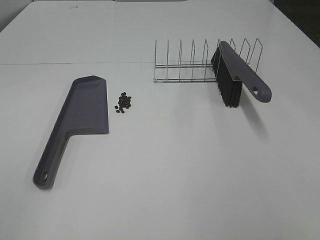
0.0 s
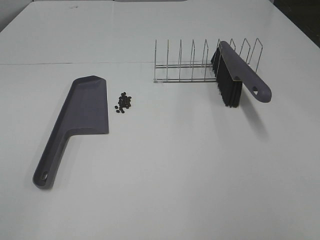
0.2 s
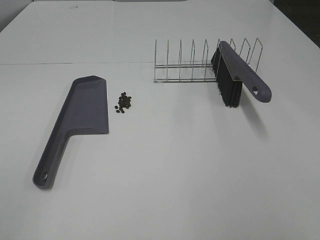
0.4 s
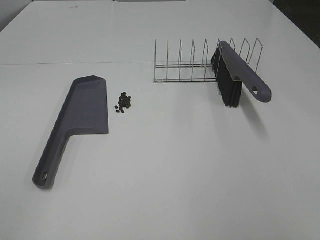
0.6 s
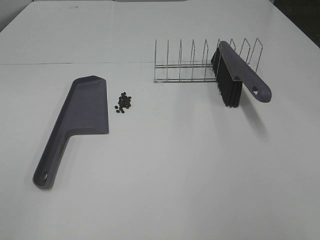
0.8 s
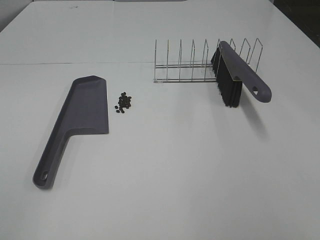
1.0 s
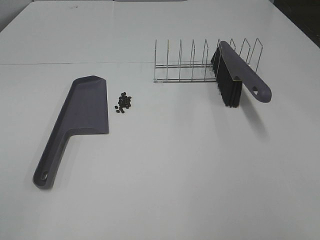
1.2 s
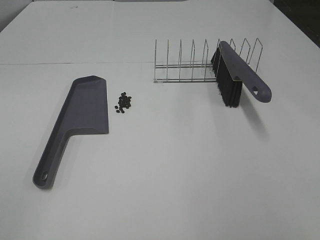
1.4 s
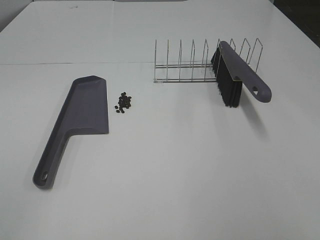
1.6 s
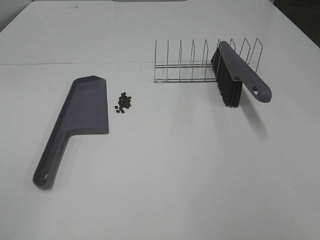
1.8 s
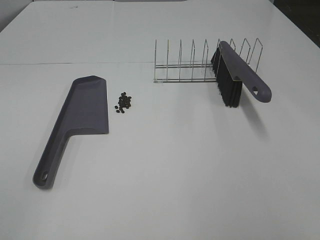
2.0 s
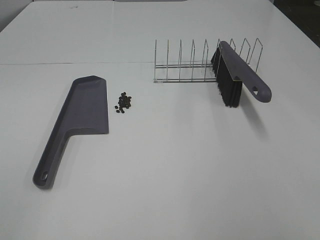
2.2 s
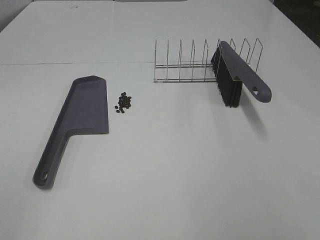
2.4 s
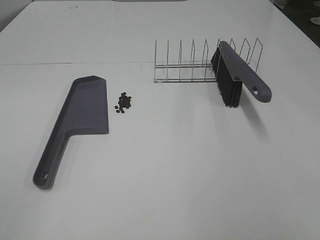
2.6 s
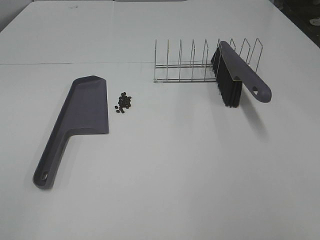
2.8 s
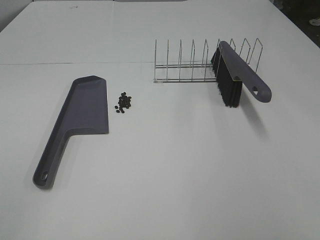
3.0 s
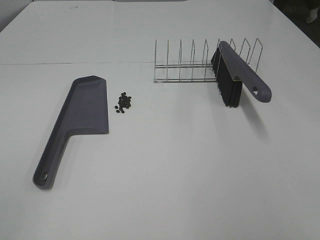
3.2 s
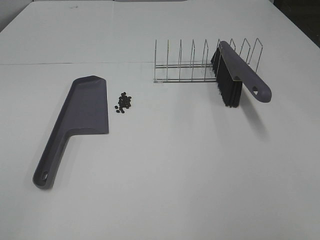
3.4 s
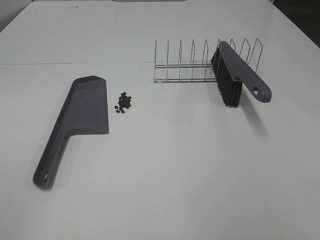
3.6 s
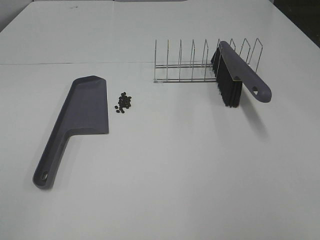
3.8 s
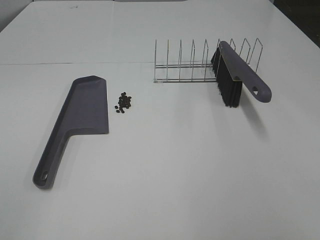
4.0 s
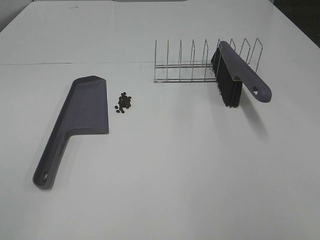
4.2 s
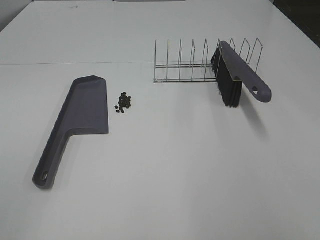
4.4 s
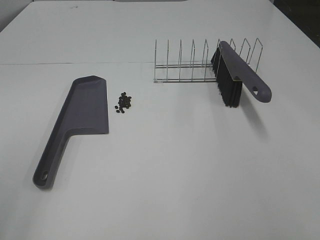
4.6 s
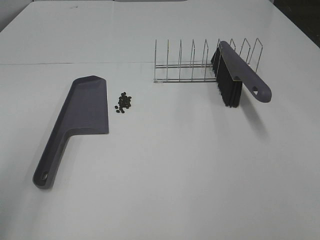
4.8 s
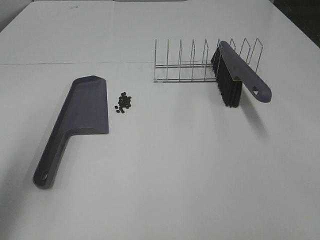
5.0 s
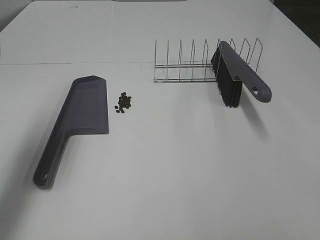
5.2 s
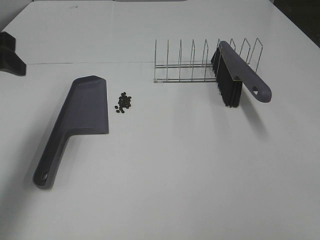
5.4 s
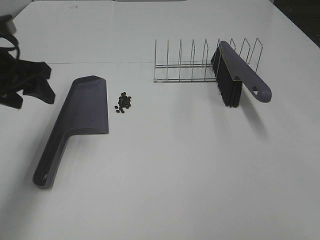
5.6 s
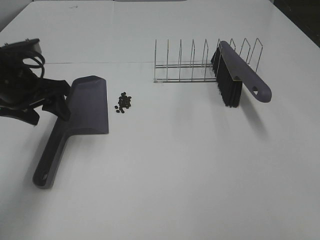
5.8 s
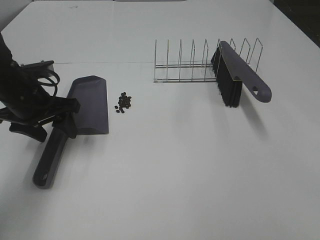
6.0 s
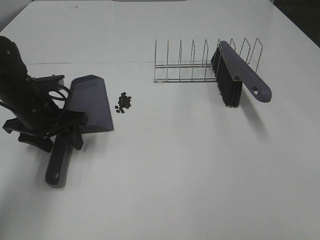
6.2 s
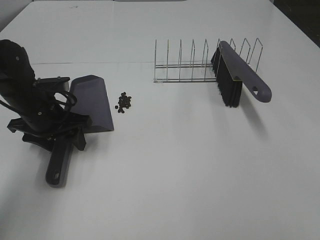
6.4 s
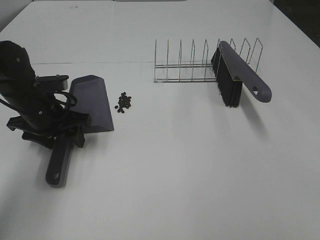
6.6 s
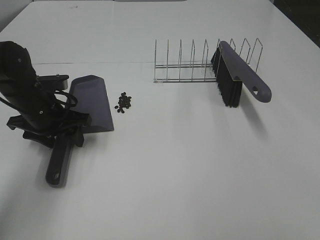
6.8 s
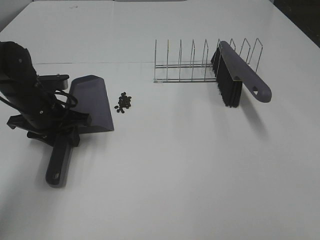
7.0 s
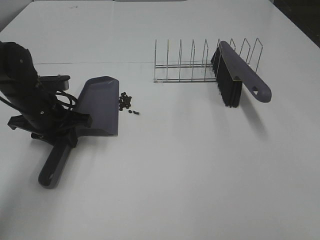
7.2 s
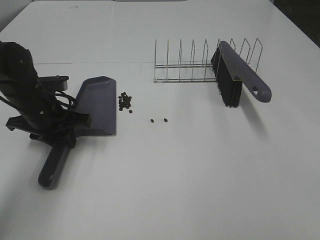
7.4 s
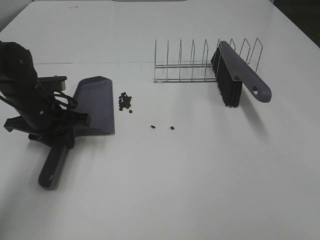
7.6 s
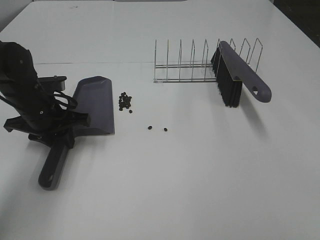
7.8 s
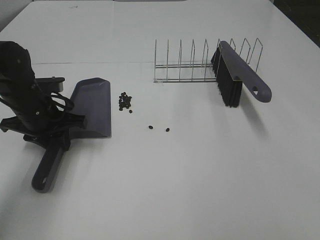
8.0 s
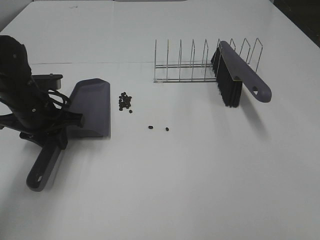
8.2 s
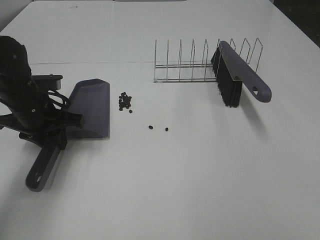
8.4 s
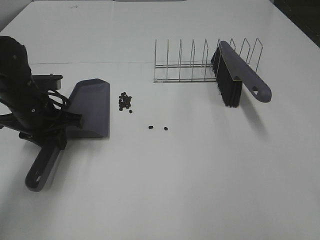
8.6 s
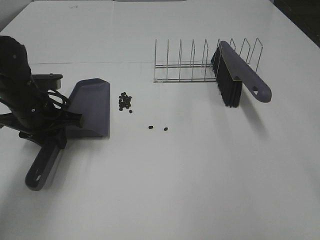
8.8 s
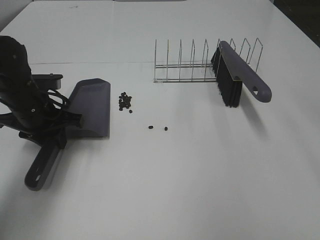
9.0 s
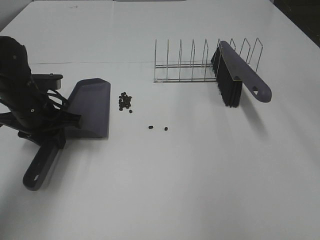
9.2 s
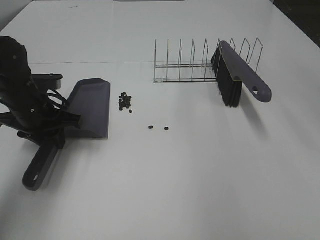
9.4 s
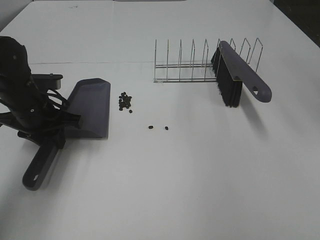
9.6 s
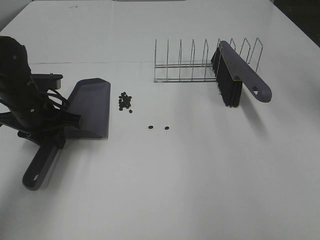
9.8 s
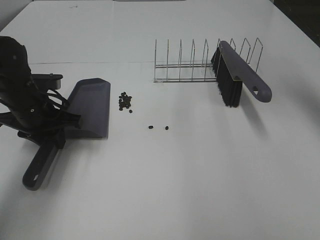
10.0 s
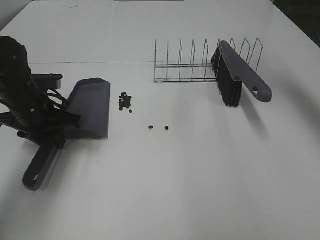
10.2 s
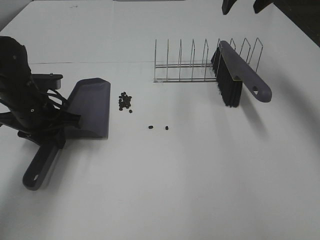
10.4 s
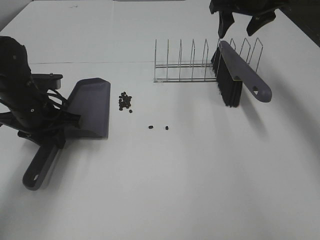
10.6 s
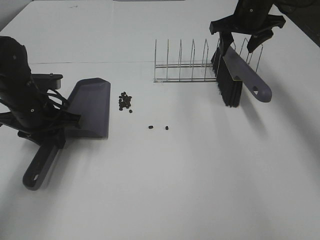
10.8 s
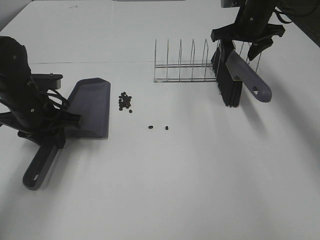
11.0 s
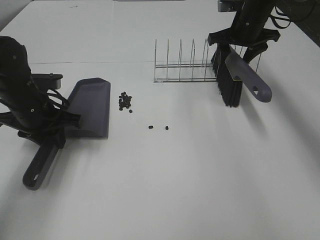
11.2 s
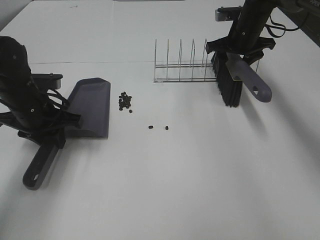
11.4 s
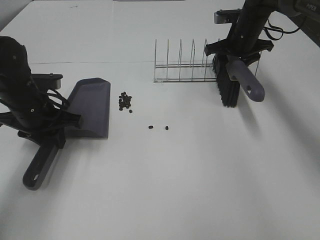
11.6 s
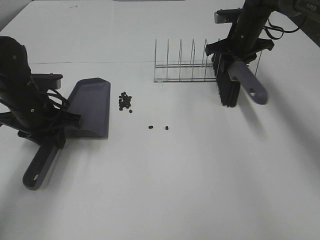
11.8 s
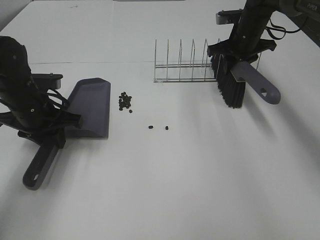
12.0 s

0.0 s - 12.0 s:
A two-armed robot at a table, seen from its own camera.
Task of the whole recording: Sweep Coffee Bean.
Step, 0.0 s - 7.0 s: Left hand: grab the dustpan.
Step, 8.4 s - 11.8 s: Right hand:grab the broom.
0.0 s - 3.0 s: Both grippers stay about where they are.
4.4 s - 6.0 s: The left gripper shifts about 35 cm forward and downward.
6.0 s - 7.6 s: The left gripper closes its fingers.
9.0 s - 10.4 s: The right gripper heads forward, covering roughly 35 cm.
10.4 s - 12.0 s: The right gripper travels downward by some 15 cm, and closes.

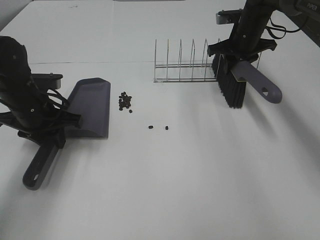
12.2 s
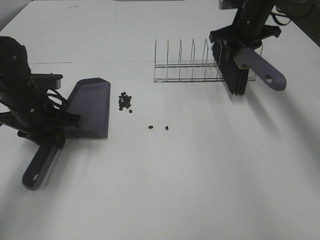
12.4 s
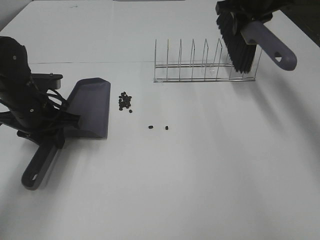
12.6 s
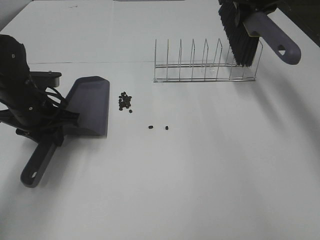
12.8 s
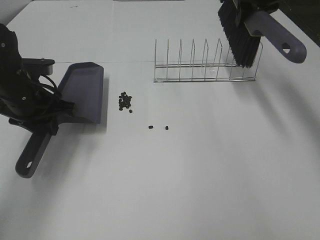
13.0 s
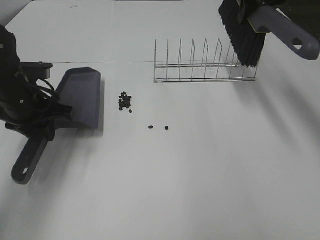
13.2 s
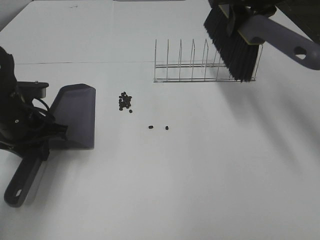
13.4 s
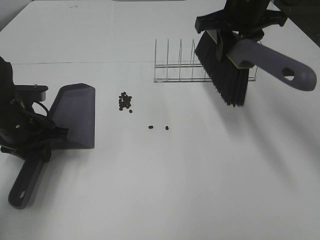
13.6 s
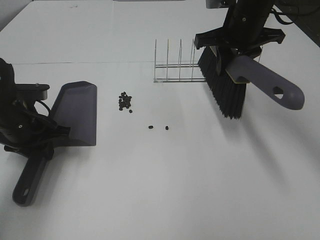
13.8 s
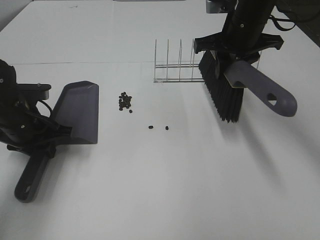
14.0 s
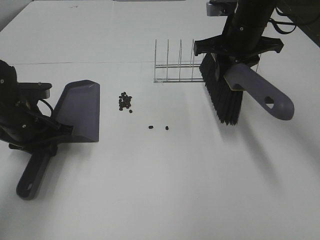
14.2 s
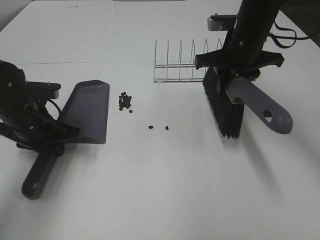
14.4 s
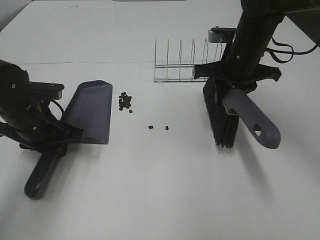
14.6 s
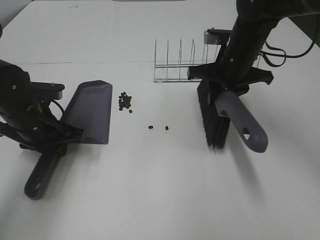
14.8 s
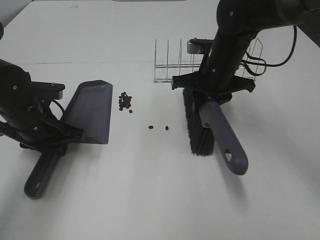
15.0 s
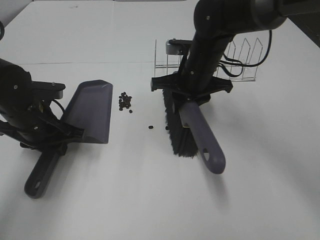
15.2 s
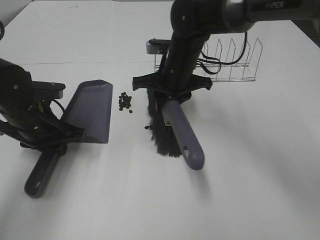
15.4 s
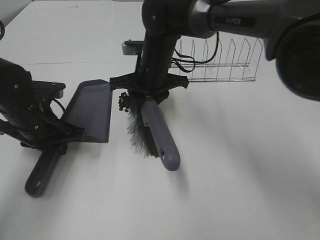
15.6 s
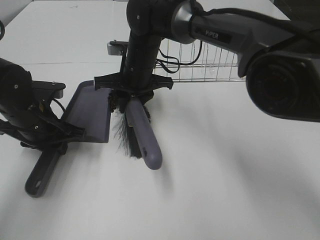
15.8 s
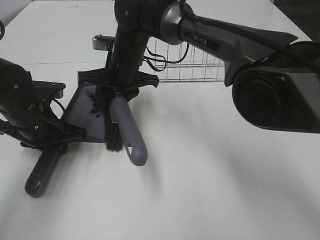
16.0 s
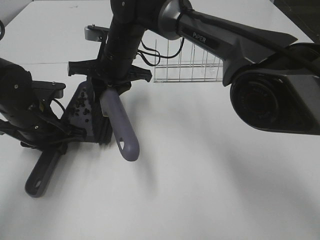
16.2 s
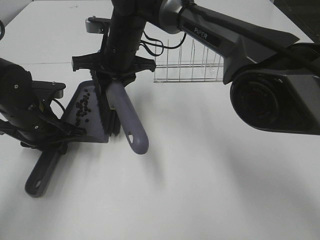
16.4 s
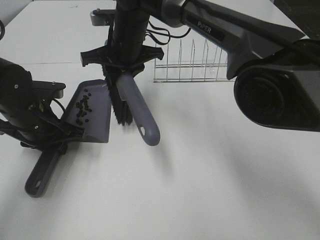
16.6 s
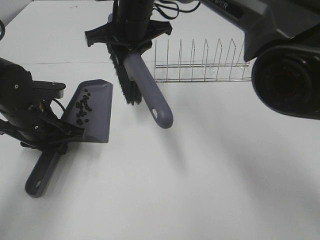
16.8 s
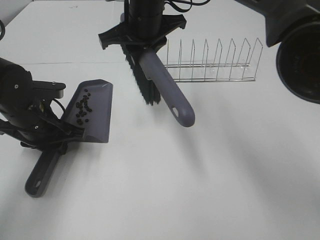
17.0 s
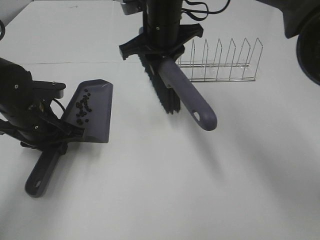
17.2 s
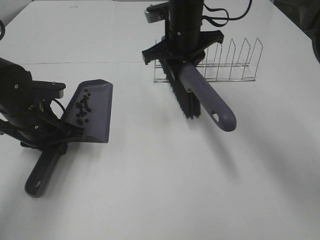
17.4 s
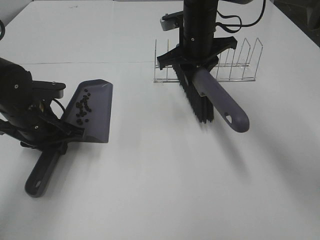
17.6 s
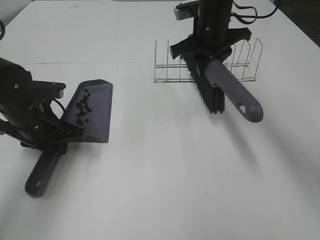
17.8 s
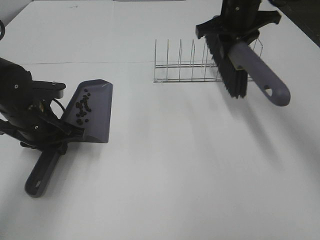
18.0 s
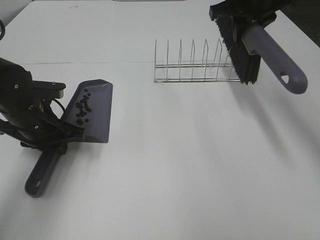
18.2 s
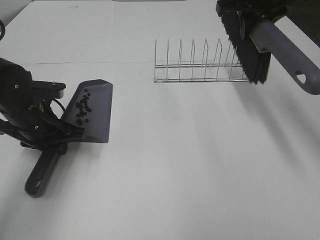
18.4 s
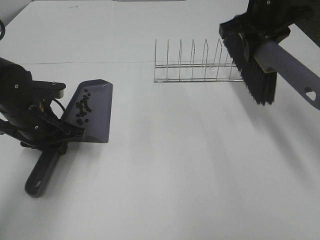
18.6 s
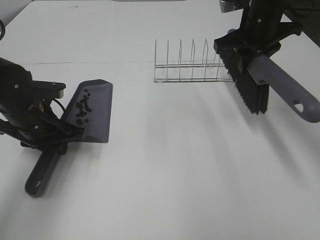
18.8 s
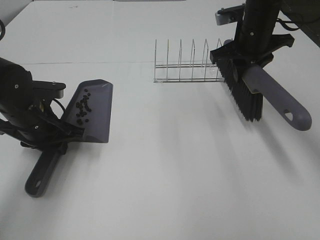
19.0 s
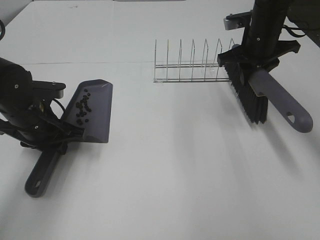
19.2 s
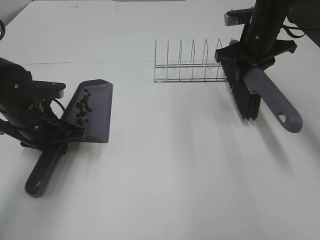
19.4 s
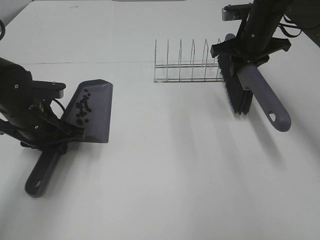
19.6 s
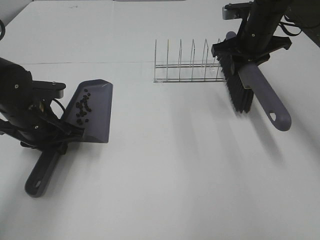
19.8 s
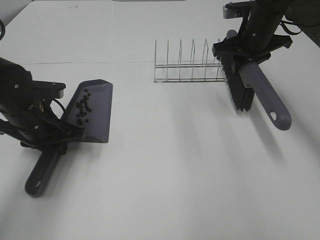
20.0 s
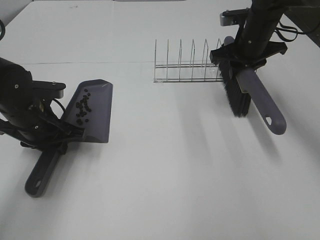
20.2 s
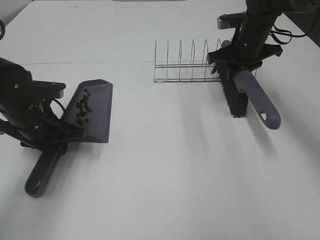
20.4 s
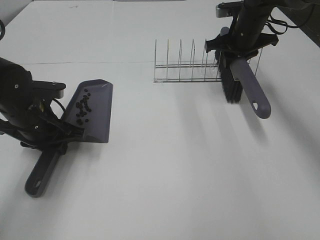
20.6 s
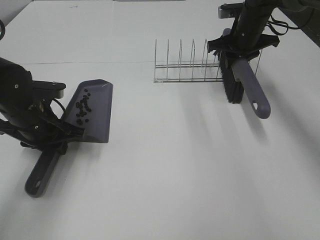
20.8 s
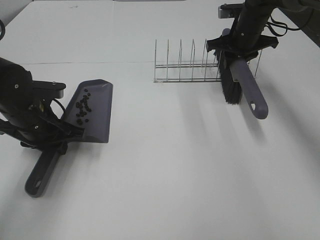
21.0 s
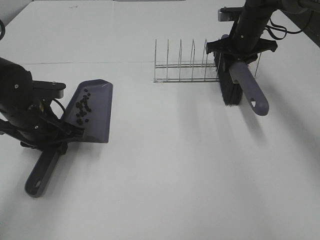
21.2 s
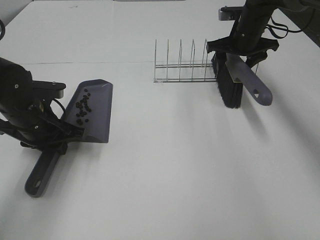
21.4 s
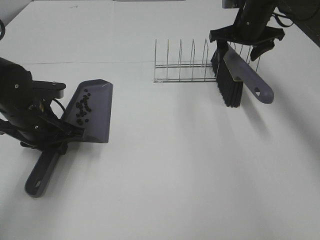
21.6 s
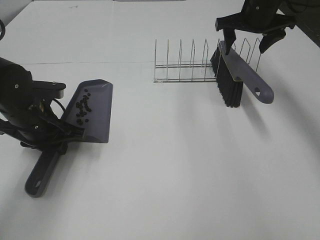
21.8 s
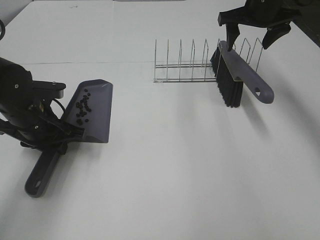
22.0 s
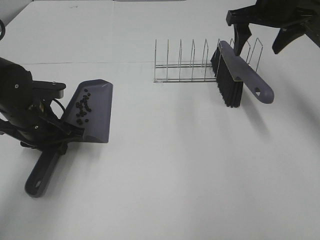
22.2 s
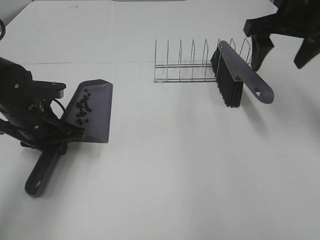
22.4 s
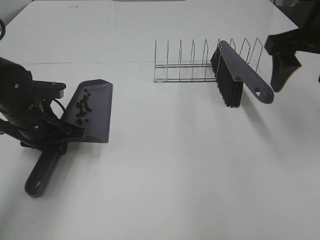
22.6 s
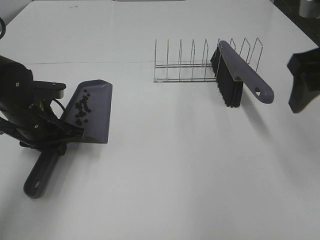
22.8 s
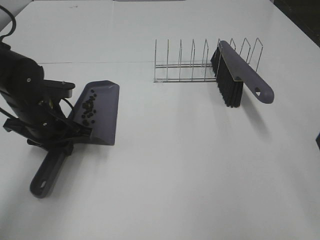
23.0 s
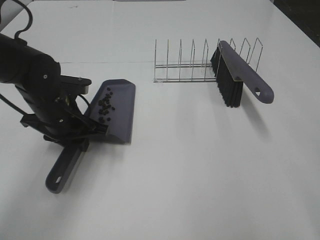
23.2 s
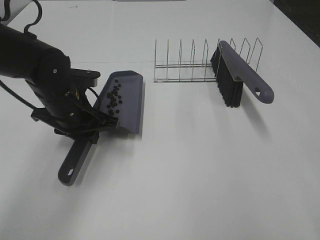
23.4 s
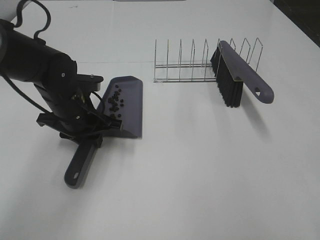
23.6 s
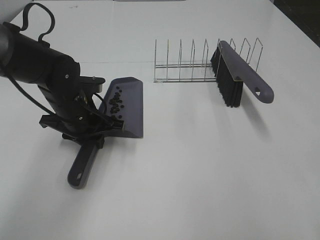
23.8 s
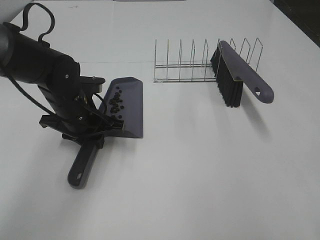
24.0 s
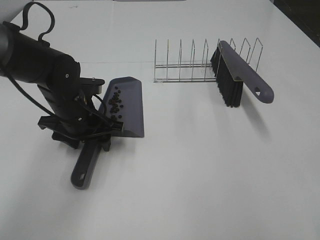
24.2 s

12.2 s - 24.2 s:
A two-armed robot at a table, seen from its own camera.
Task of the whole recording: Sweep Coffee Bean.
Step, 12.2 s - 14.6 s: Left hand: move the dustpan to the left side of the coffee beans.
Step, 12.2 s - 16.6 s: Right hand:sweep the coffee beans into the dustpan.
Step, 16.8 s - 21.2 s: Right hand:place the broom on the rack.
Step, 21.4 s - 24.0 s: Left hand:place the dustpan on the table.
12.2 s - 13.8 s: The right gripper moves backward, upward and to the left, roughly 15 cm.
13.8 s - 15.2 s: The right gripper goes roughly 10 cm downward and to the left.
15.2 s - 16.6 s: The right gripper goes about 15 cm to the left and upward.
16.6 s - 18.2 s: The right gripper heads to the right, covering about 25 cm.
18.2 s - 19.8 s: The right gripper shifts approximately 10 cm downward.
19.8 s - 21.2 s: The right gripper shifts about 5 cm forward.
21.2 s - 22.6 s: The right gripper heads backward and upward, covering some 25 cm, and opens up.
22.6 s - 24.2 s: The left gripper shifts some 5 cm to the right, and opens its fingers. Meanwhile the right gripper is displaced backward by approximately 20 cm.
